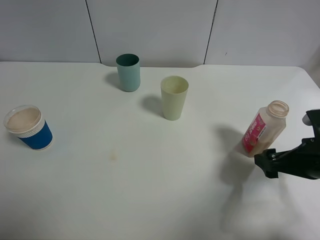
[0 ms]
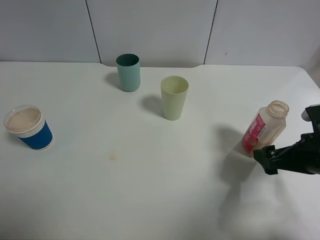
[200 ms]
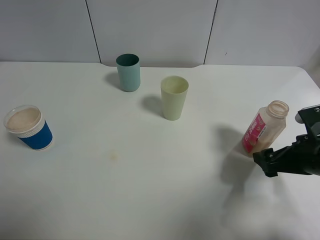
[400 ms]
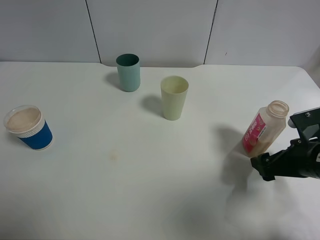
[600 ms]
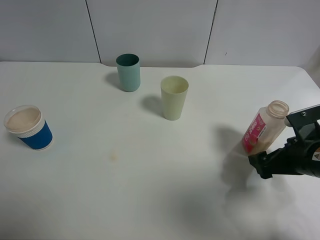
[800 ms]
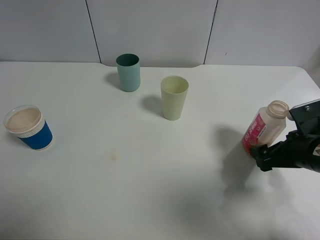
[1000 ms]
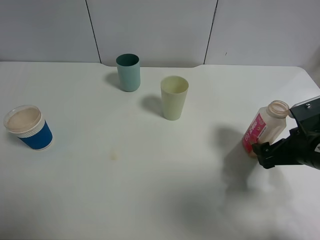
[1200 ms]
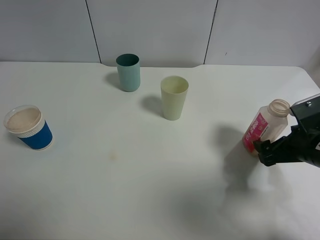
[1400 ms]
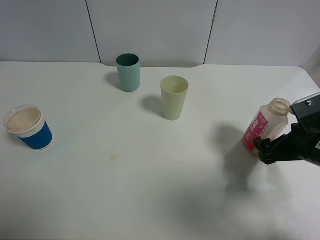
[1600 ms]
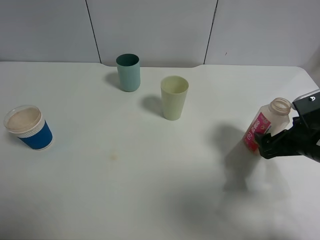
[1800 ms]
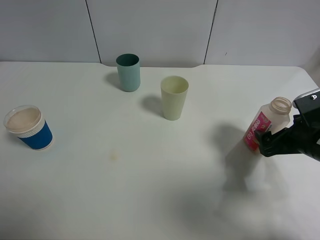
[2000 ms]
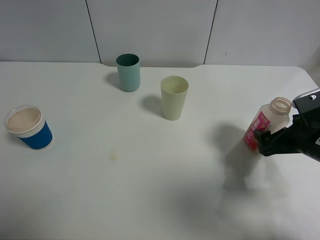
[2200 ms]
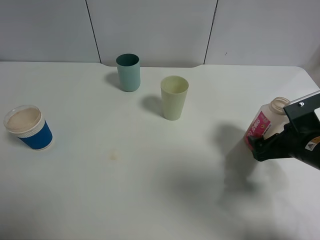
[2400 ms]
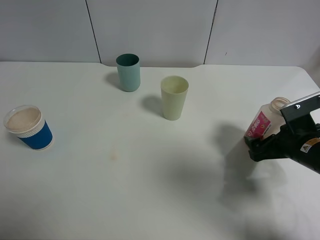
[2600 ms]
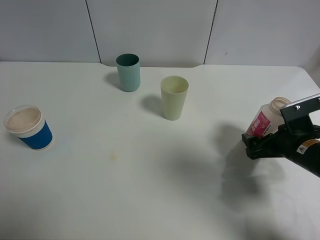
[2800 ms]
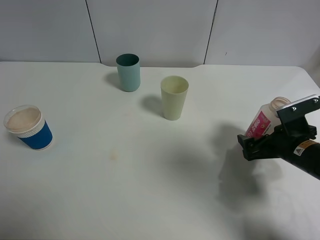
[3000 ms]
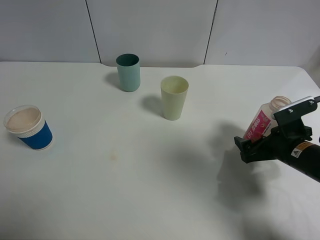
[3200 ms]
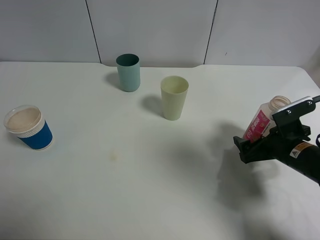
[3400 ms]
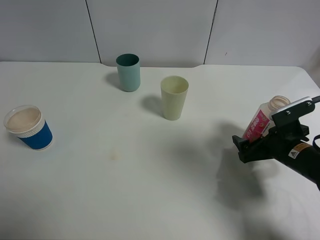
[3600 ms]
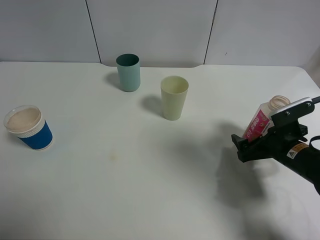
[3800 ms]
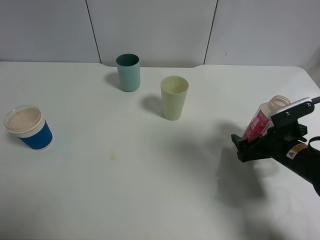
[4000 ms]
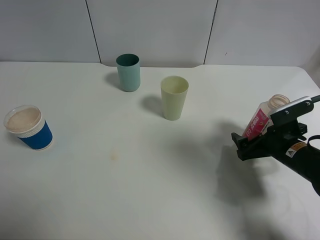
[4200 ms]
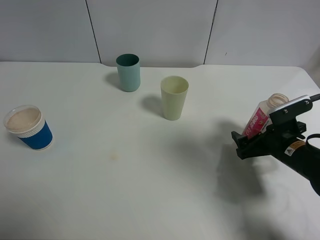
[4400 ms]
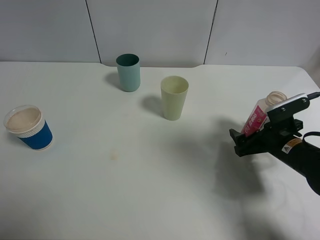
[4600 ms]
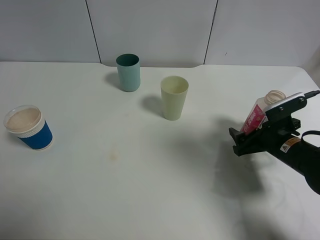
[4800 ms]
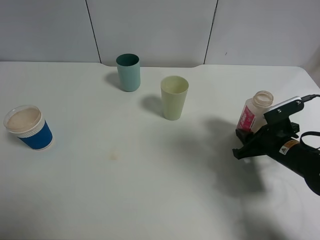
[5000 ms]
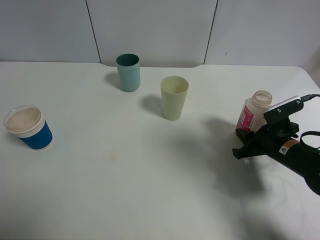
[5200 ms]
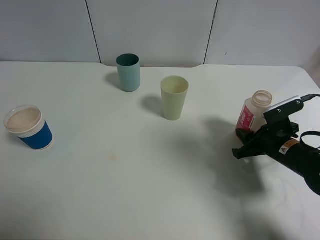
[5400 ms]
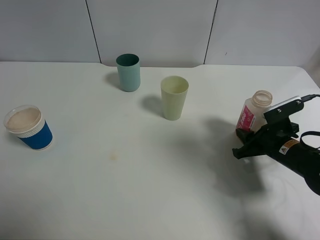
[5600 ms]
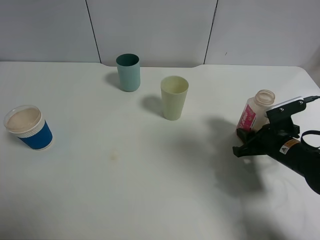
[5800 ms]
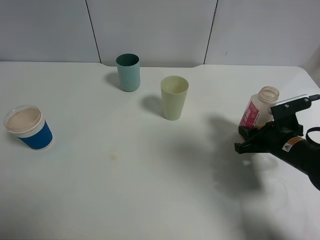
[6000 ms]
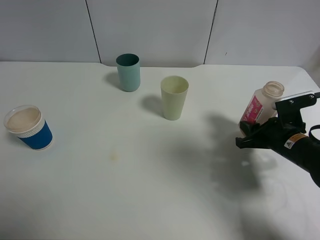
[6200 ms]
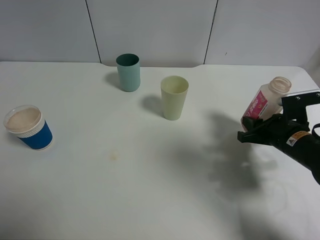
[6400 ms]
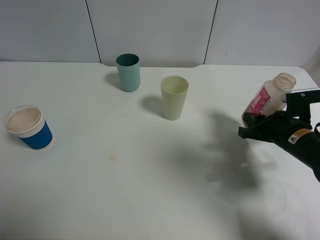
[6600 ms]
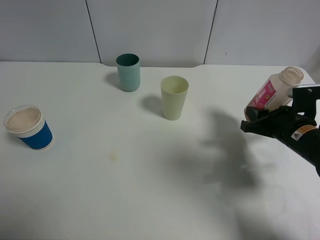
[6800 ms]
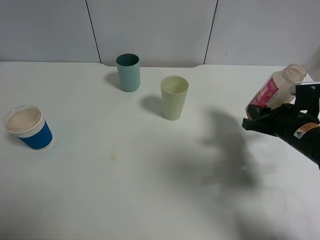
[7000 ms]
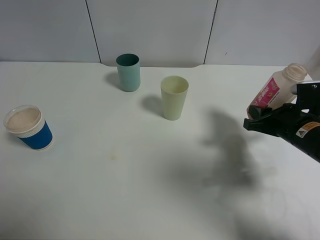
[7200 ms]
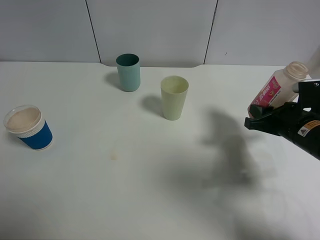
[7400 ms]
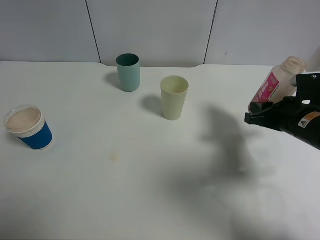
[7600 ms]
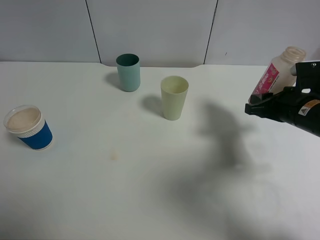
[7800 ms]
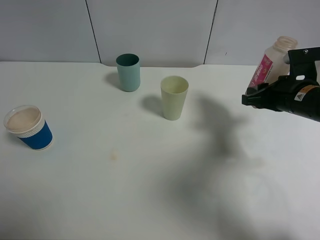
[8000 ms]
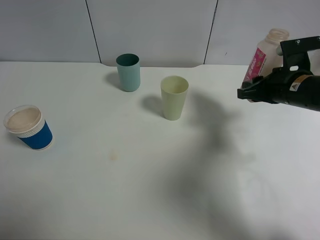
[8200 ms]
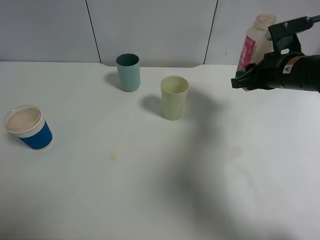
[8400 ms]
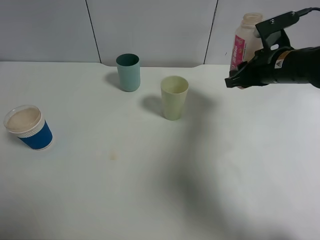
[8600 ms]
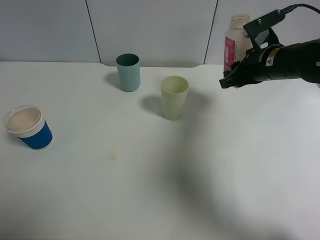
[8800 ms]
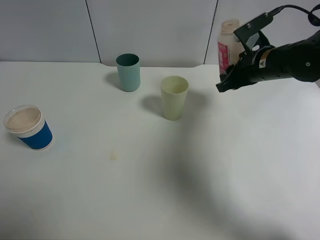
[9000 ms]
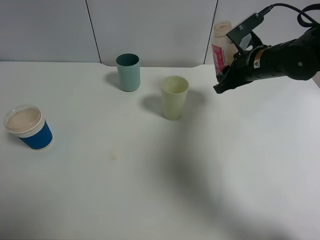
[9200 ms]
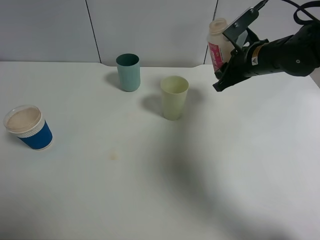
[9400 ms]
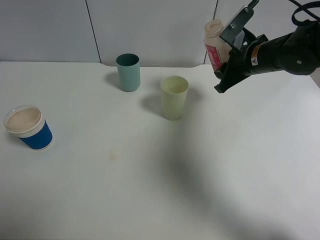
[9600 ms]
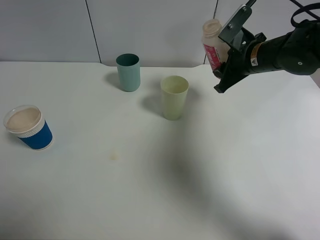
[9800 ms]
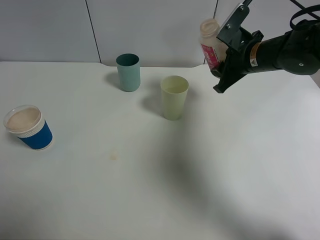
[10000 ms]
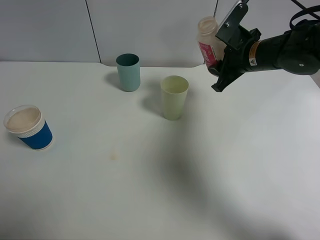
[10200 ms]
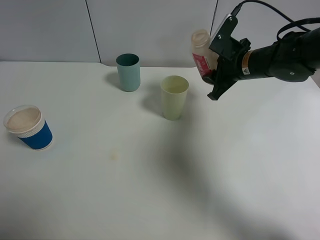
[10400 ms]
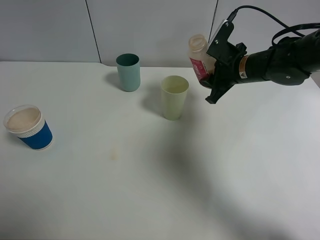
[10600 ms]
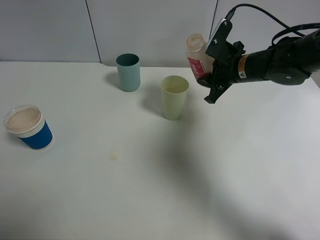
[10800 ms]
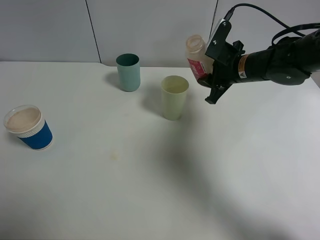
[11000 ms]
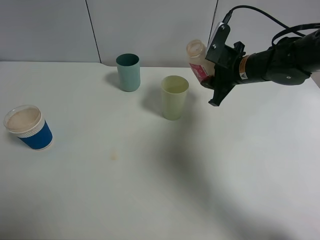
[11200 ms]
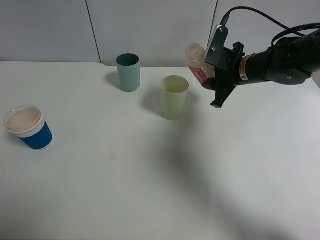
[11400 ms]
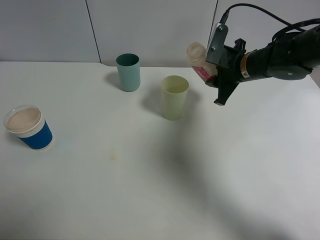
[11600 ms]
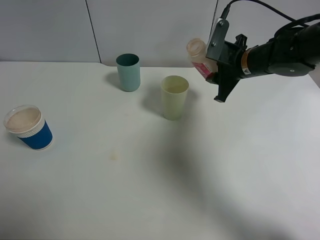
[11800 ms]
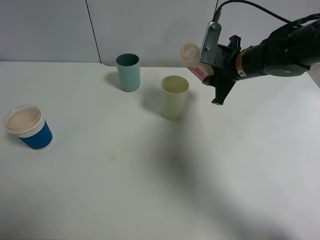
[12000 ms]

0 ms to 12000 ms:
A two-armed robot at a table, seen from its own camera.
Task of the whole recording: use a clamp to hold the bottle of the drink, pour the beverage into a random cup, then clamp the cup containing the drink and pour the drink into another random cup.
Step, 0 ms to 6200 ms: Pick up the drink bottle with right gripper.
1600 ms to 3000 ms: The grippers stay close to where they were, moving slightly.
3000 ms to 4400 ms: The grippers stay close to where they were, moving slightly.
4400 ms to 6000 ms: The right gripper closes up.
6000 ms to 7600 ms: The right gripper heads upward, covering roughly 5 cm.
7600 ms to 9000 ms: The right gripper shifts roughly 15 cm forward, upward and to the left.
10400 ms to 12000 ms: The grippers make only small movements.

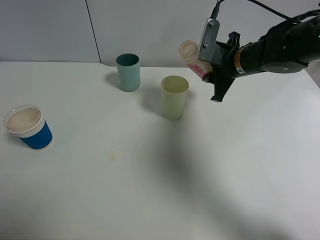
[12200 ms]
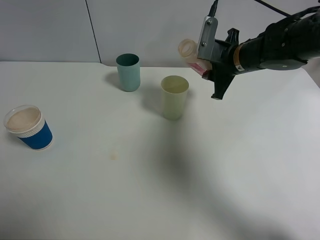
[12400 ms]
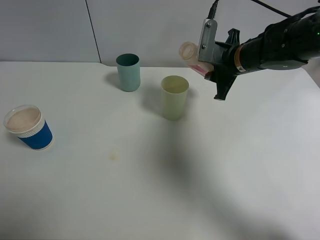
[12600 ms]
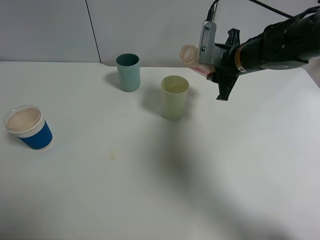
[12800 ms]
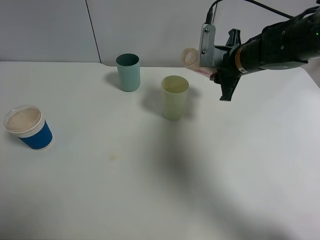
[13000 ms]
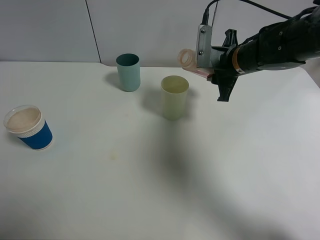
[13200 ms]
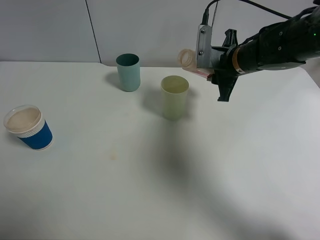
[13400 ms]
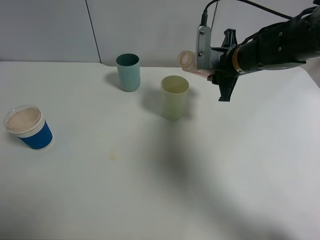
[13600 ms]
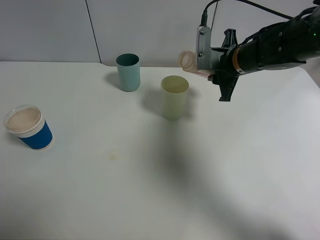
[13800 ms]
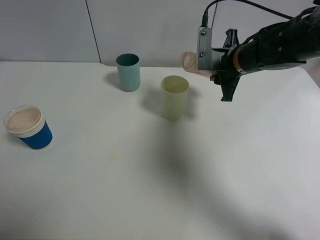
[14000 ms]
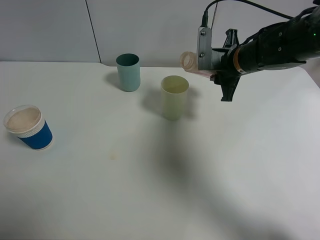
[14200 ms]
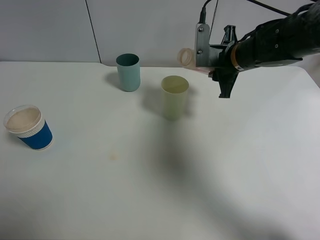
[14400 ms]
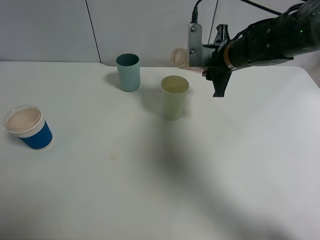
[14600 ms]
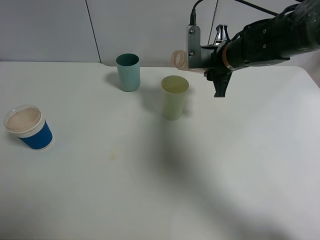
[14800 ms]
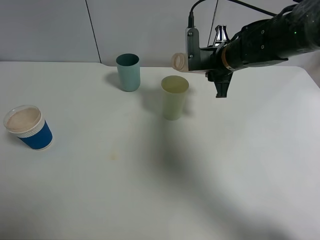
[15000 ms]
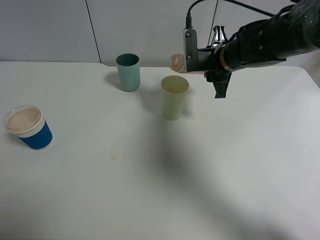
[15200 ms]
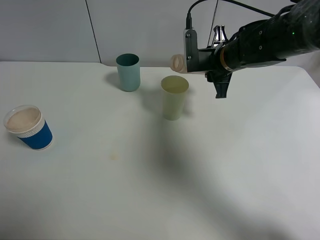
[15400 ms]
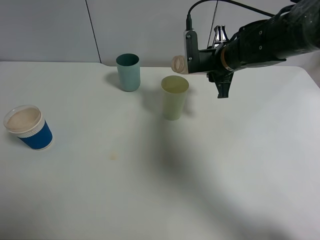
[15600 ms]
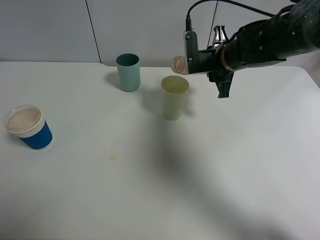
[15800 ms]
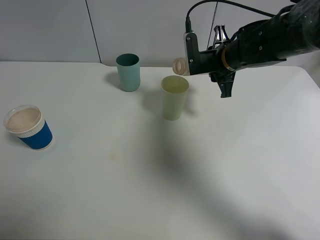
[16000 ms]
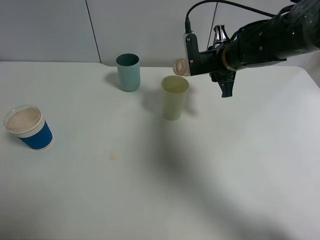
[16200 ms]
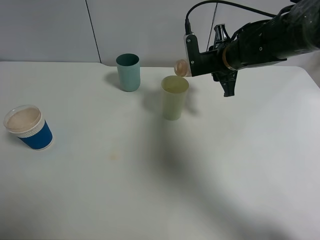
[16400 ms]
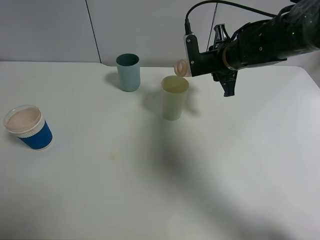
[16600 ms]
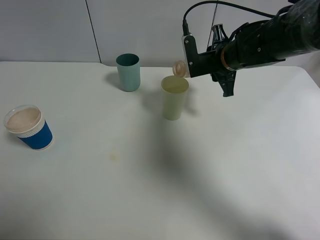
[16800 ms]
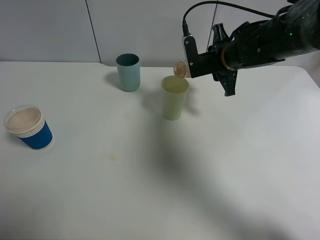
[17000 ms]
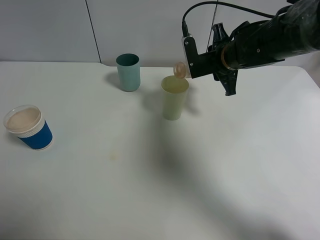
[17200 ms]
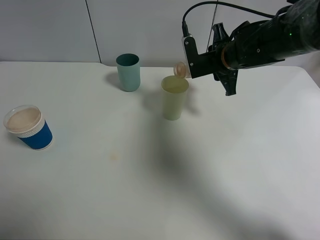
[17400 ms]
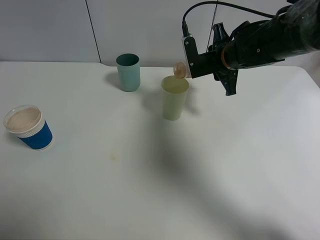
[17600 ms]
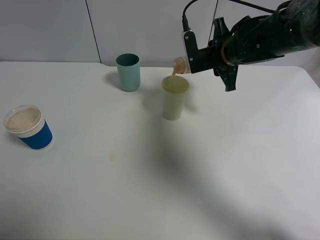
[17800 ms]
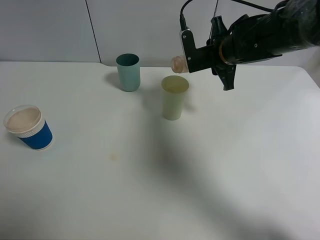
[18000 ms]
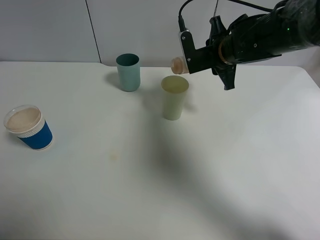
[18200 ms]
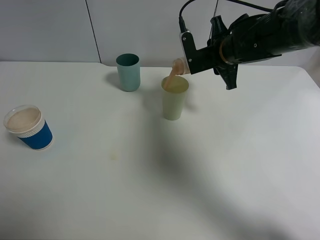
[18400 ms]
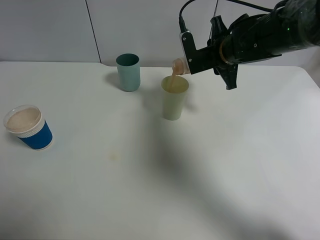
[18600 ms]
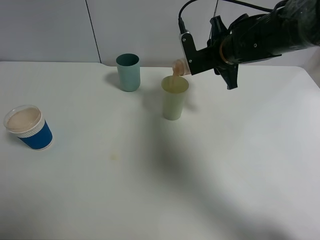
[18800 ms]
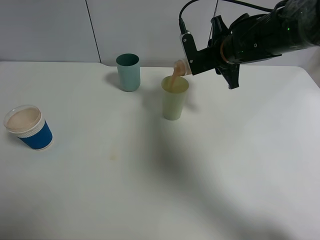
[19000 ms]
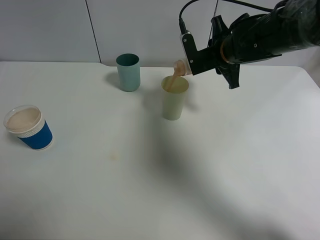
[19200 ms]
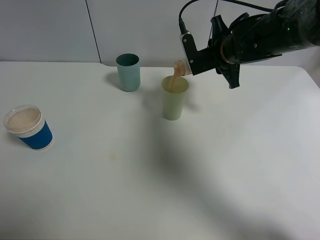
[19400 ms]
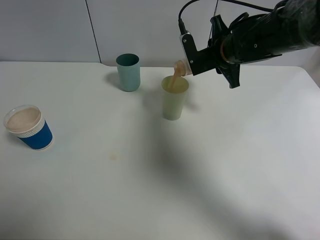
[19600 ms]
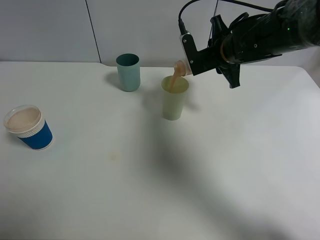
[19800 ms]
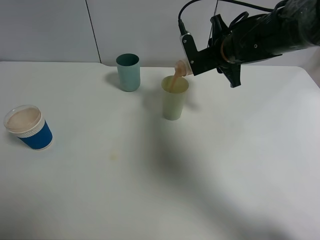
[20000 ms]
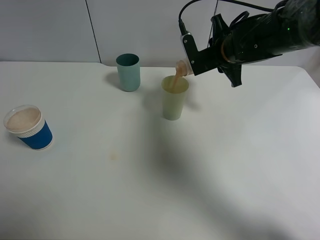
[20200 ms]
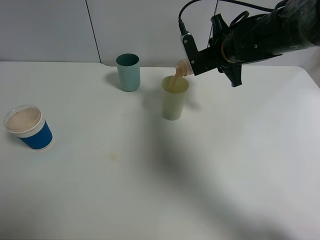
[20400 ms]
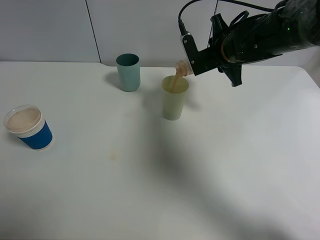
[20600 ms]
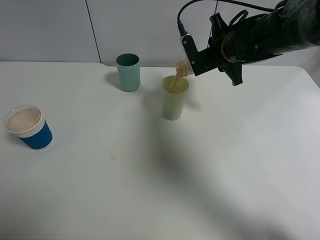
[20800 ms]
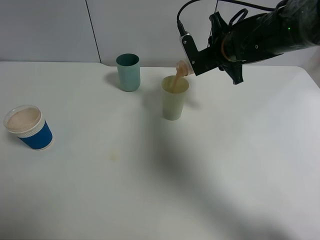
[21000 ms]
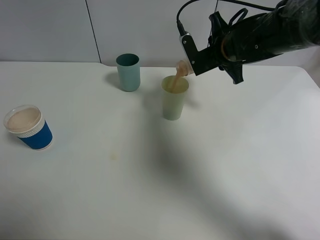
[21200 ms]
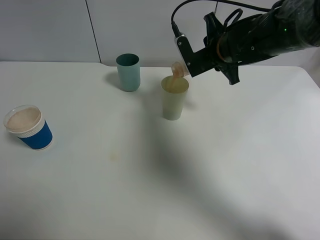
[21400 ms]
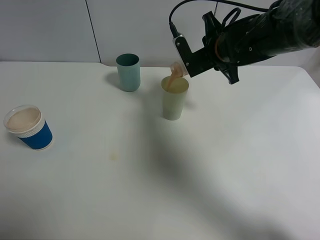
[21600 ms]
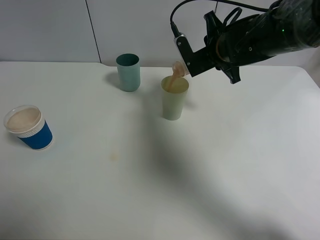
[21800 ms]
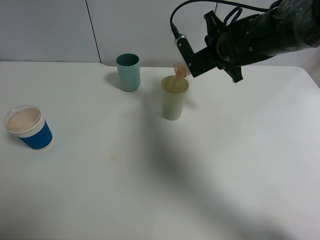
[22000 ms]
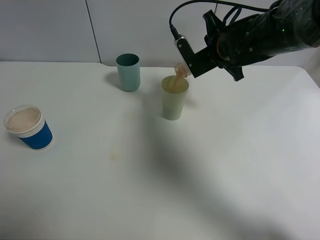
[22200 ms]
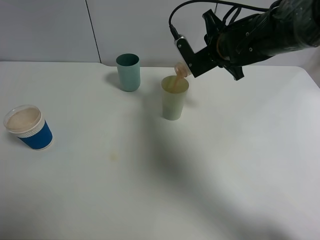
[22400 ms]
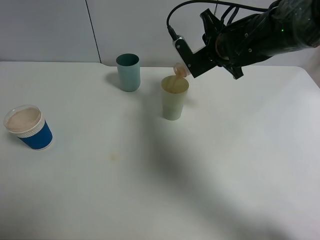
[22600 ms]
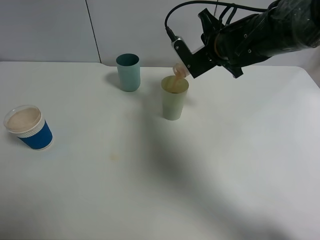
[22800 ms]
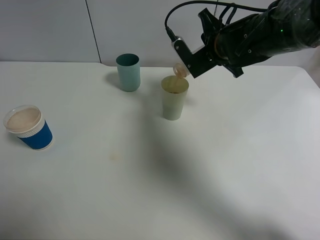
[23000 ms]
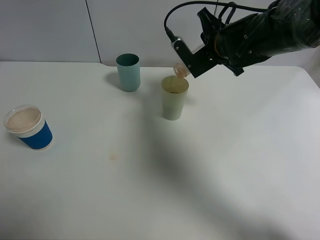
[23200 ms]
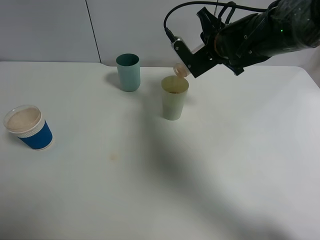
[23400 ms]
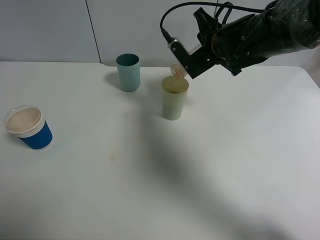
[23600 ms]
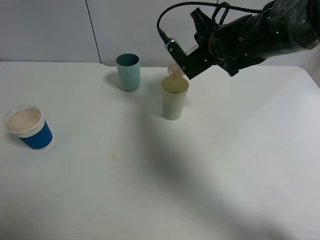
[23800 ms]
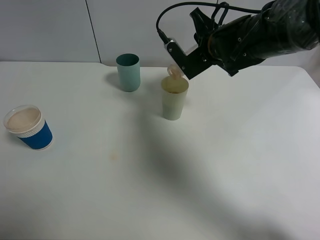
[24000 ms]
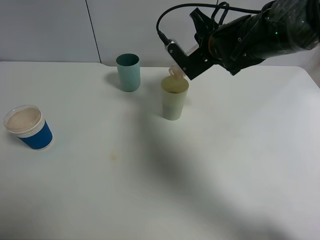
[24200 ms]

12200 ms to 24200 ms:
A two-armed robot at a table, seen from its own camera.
Task of the whole recording: use a clamp to hold the bottle of the drink, pour the beverage into a random cup, then clamp the cup containing the drink and pour the drink into another random cup.
12200 ms to 13800 ms: The grippers make only small movements.
13800 ms to 16600 ms: The grippers move only a little.
16600 ms to 21200 ms: The grippers move only a little.
21200 ms to 24200 ms: The grippers stay close to where they were, moving slightly.
